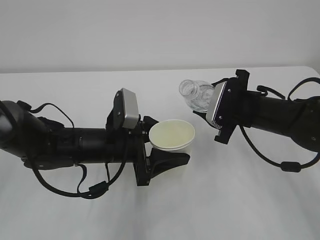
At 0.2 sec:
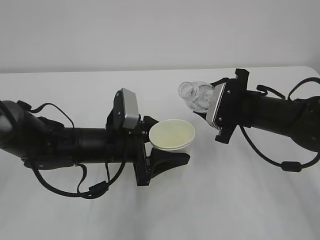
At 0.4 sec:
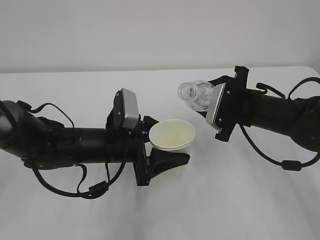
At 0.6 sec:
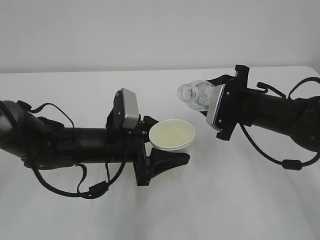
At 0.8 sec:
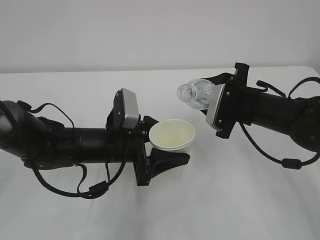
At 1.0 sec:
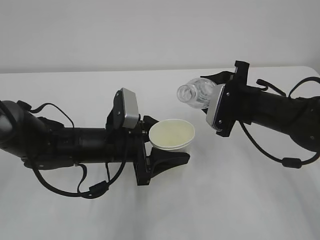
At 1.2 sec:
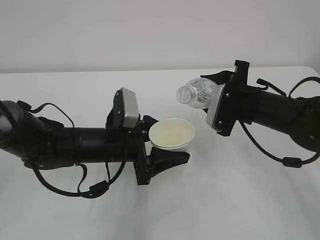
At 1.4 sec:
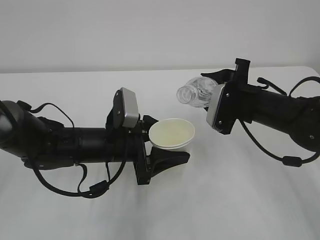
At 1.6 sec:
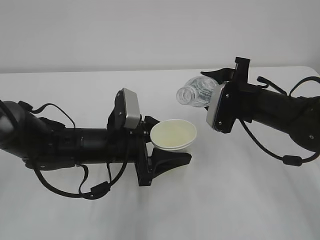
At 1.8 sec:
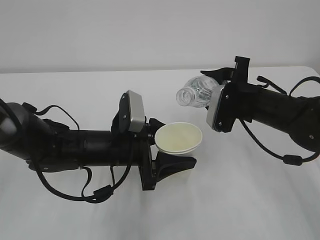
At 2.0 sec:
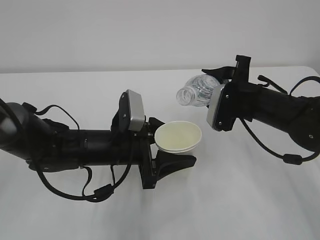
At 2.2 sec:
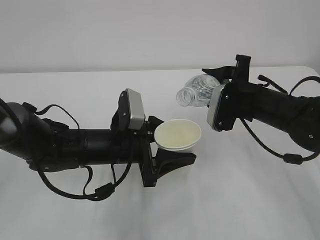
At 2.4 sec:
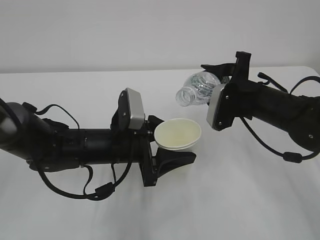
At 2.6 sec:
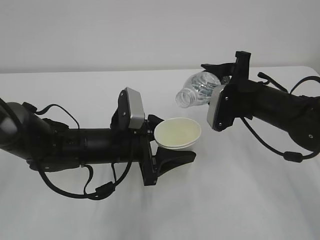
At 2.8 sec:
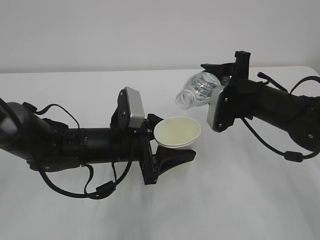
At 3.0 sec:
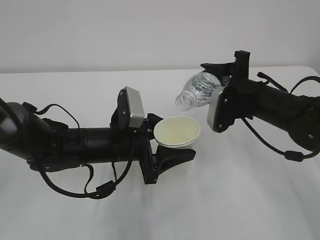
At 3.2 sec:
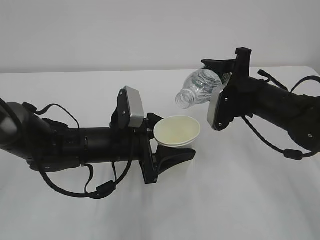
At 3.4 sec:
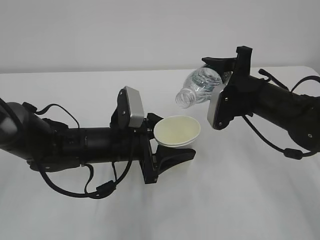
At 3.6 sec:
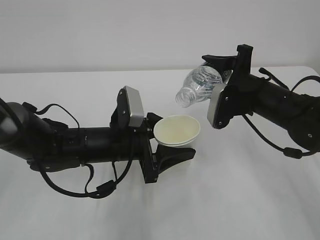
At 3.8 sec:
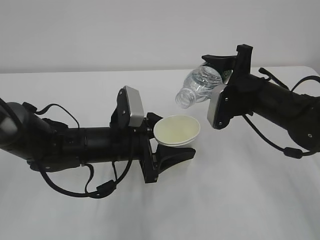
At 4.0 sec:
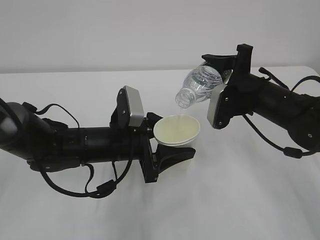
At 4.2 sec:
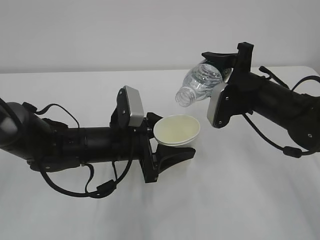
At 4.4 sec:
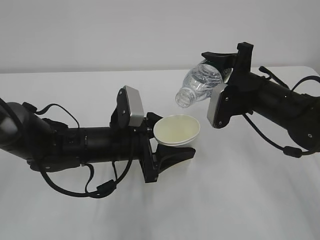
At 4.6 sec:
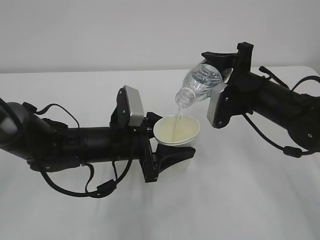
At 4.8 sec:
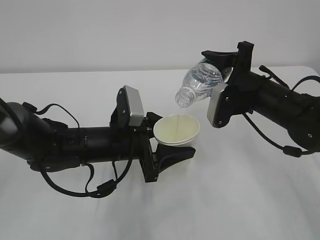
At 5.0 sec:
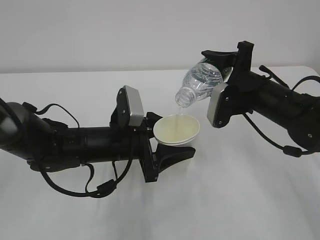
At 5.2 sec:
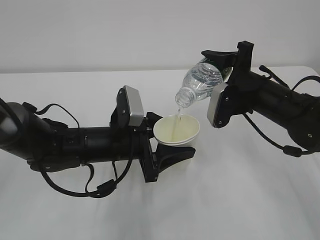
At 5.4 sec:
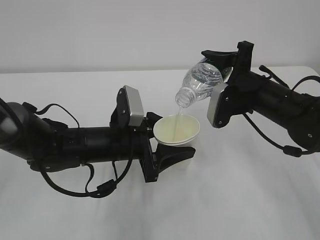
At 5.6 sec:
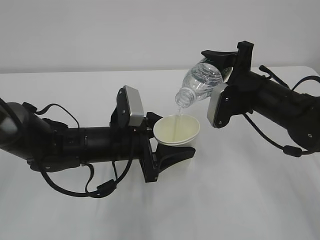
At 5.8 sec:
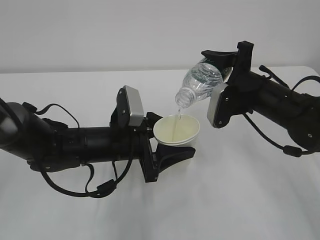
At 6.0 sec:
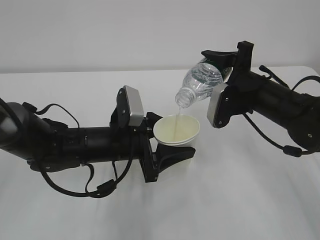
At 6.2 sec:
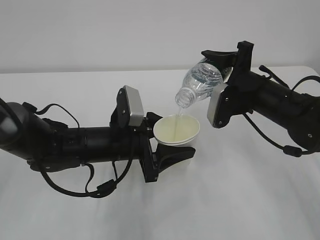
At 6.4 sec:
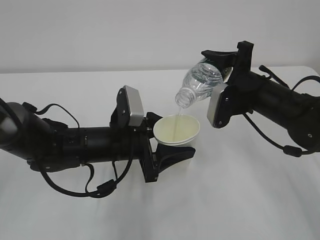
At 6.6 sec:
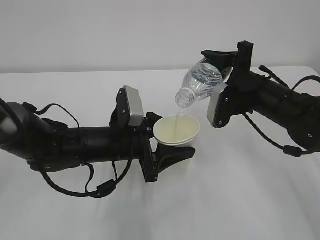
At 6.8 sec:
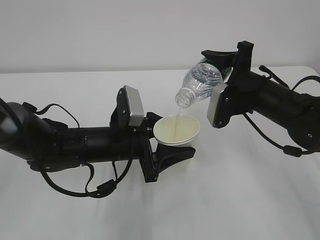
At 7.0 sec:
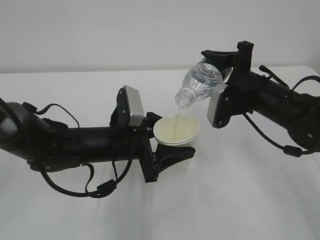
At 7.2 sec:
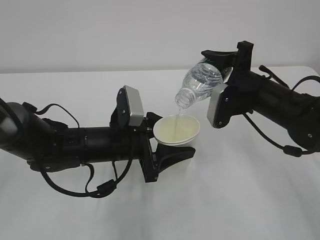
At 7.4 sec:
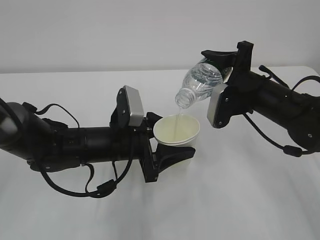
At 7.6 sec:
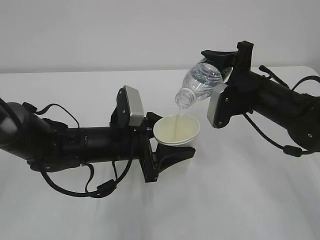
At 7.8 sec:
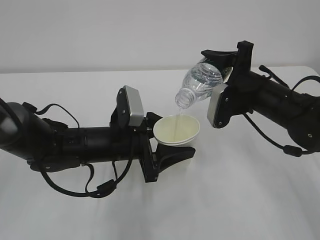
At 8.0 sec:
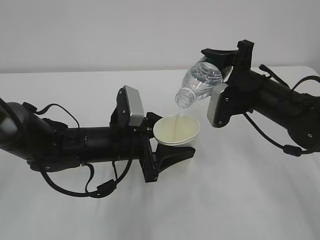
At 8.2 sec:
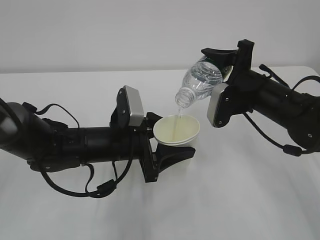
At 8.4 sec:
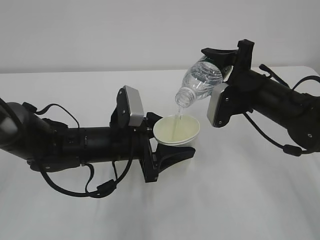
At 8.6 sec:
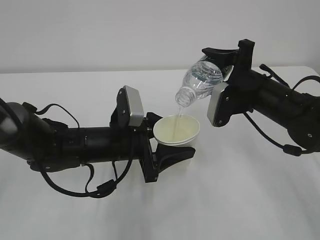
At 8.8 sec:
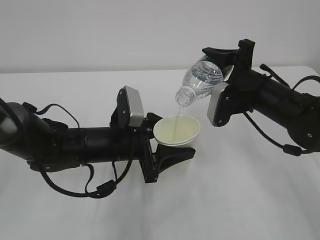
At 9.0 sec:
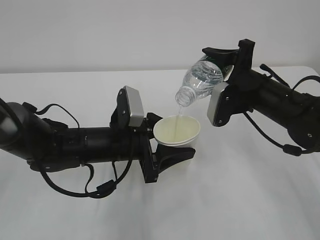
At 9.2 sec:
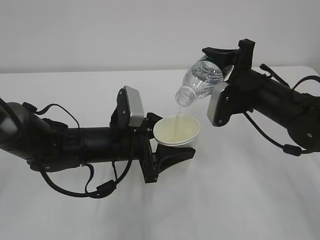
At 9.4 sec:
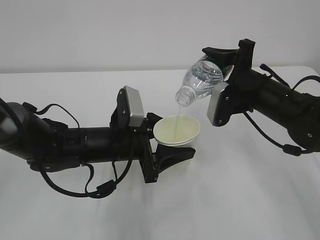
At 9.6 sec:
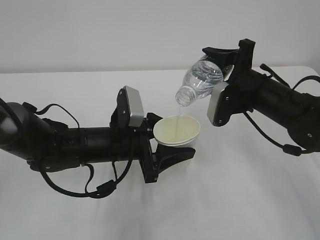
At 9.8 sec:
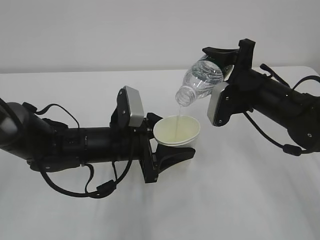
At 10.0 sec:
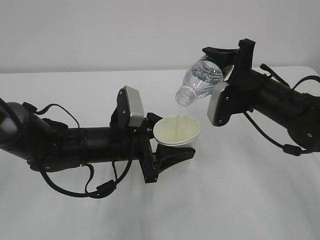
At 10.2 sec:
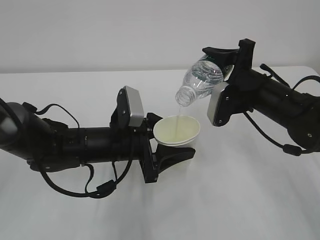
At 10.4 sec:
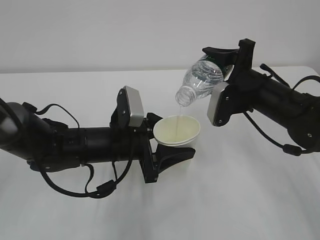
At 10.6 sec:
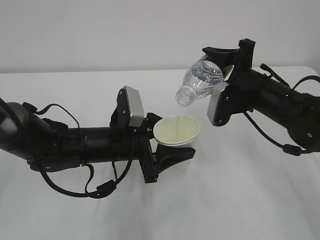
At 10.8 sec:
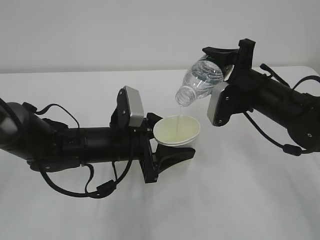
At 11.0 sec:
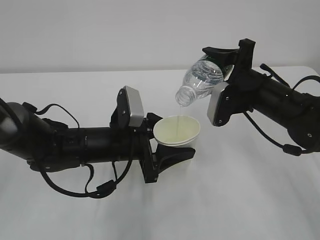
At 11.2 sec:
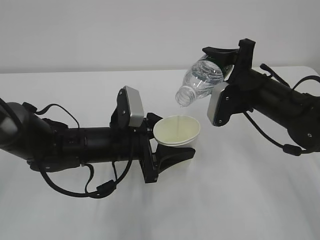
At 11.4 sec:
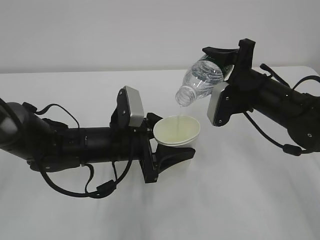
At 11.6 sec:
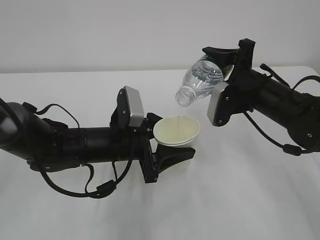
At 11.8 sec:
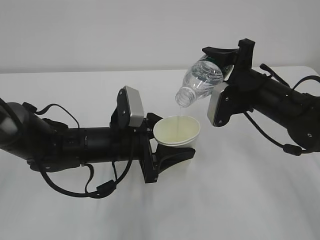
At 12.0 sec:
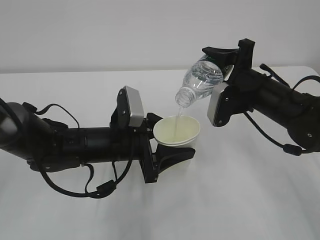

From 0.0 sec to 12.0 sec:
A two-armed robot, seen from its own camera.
From 0.0 sec to 1.6 sec: The grippers move only a little.
From 1.6 sec to 4.4 sec: There are only small adjustments of the grippers.
From 4.4 sec to 12.0 sec: Both grippers stay put.

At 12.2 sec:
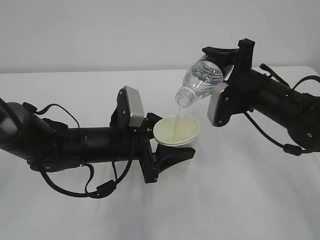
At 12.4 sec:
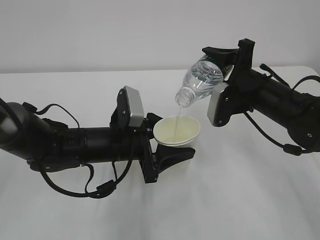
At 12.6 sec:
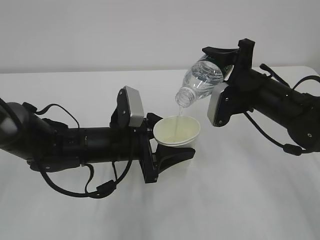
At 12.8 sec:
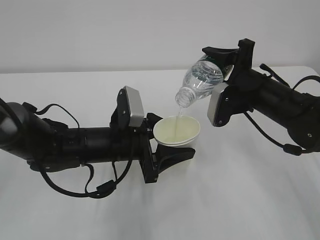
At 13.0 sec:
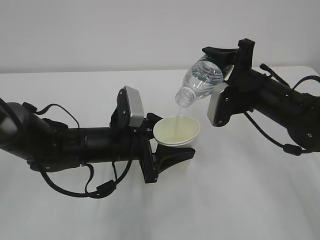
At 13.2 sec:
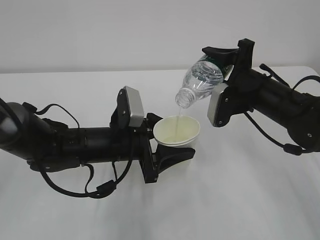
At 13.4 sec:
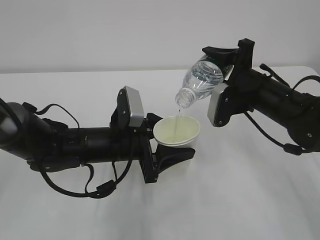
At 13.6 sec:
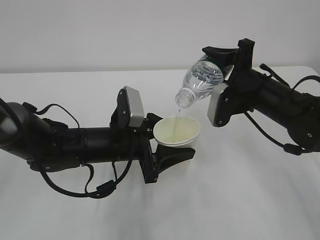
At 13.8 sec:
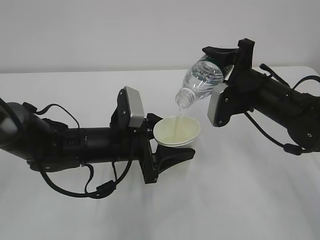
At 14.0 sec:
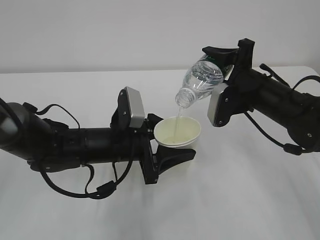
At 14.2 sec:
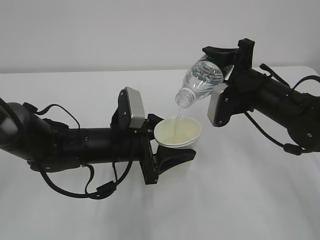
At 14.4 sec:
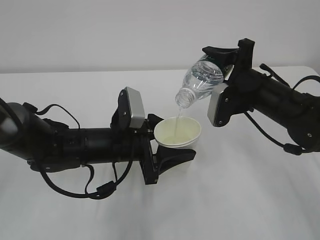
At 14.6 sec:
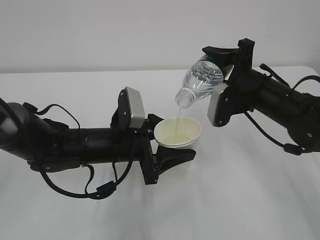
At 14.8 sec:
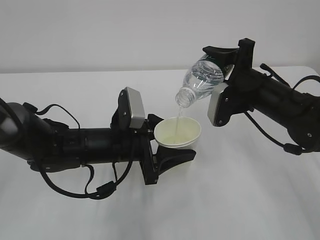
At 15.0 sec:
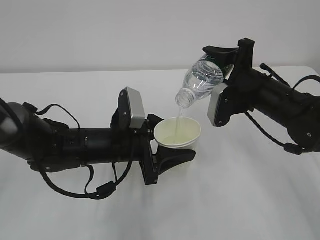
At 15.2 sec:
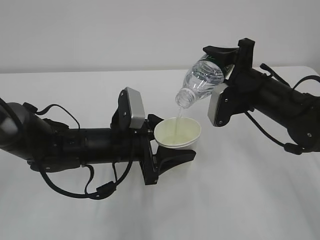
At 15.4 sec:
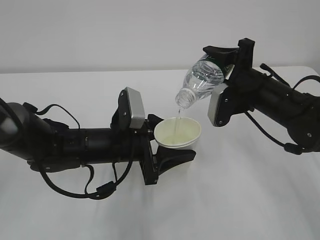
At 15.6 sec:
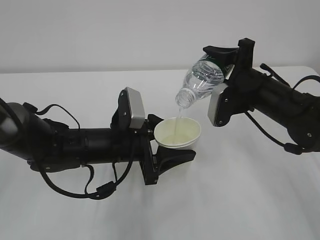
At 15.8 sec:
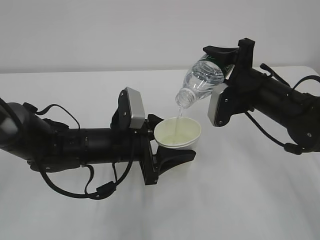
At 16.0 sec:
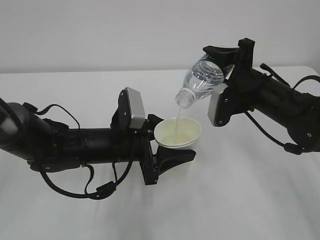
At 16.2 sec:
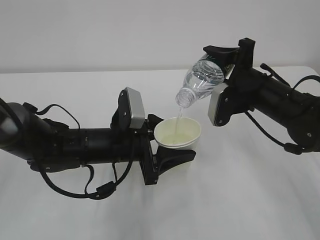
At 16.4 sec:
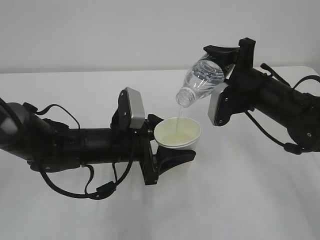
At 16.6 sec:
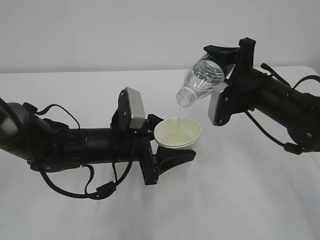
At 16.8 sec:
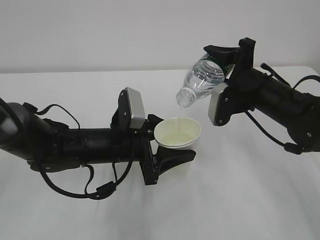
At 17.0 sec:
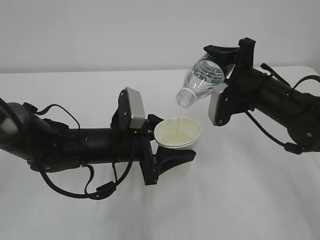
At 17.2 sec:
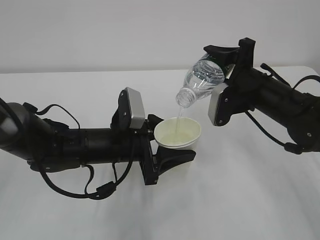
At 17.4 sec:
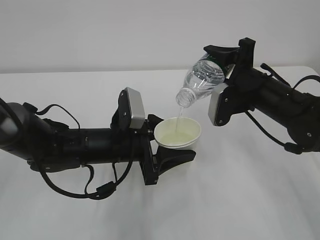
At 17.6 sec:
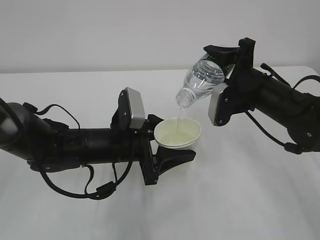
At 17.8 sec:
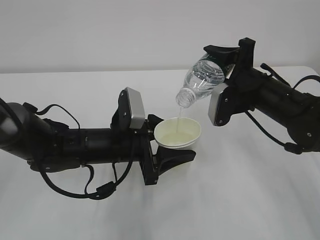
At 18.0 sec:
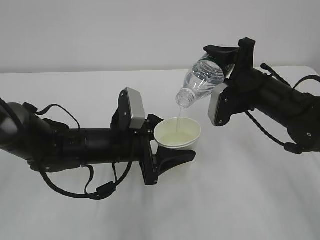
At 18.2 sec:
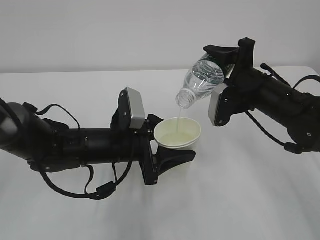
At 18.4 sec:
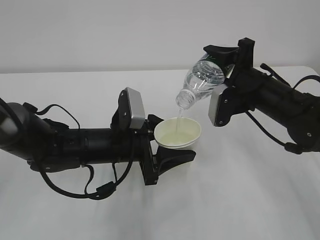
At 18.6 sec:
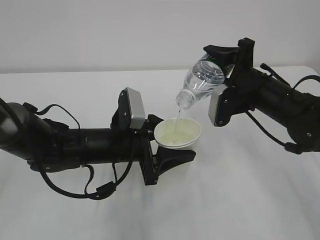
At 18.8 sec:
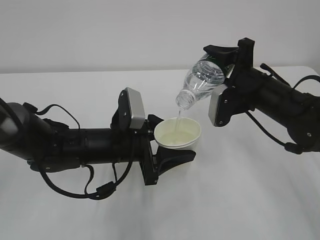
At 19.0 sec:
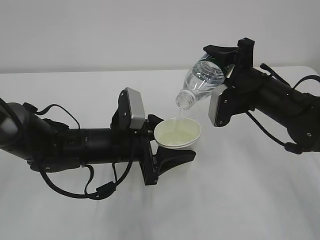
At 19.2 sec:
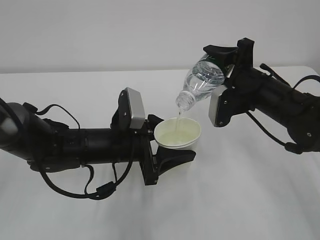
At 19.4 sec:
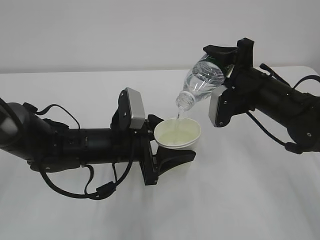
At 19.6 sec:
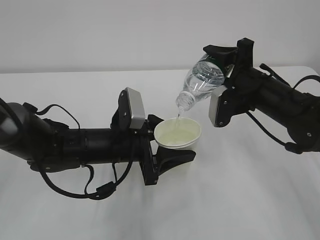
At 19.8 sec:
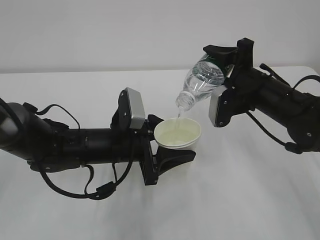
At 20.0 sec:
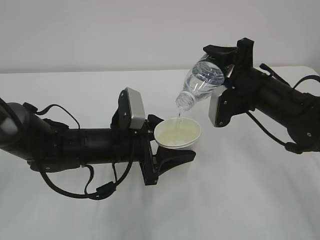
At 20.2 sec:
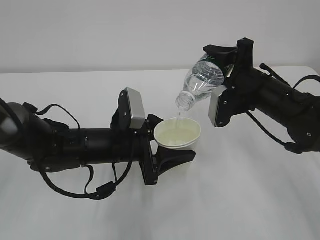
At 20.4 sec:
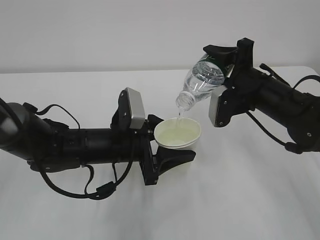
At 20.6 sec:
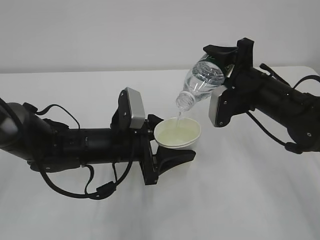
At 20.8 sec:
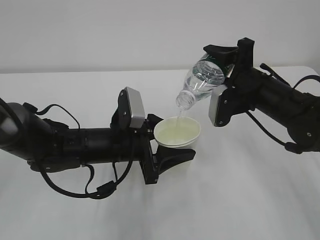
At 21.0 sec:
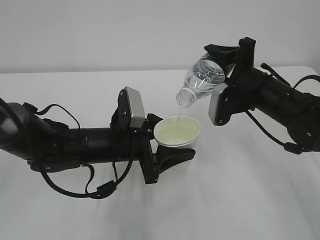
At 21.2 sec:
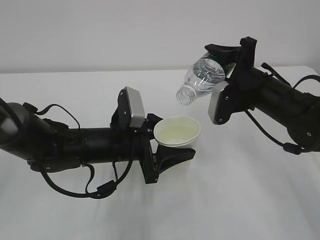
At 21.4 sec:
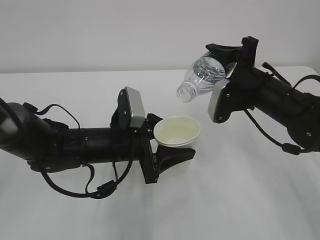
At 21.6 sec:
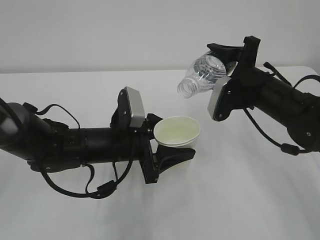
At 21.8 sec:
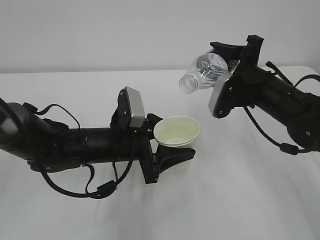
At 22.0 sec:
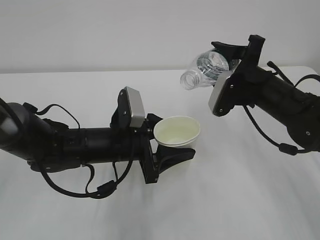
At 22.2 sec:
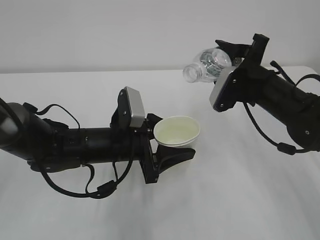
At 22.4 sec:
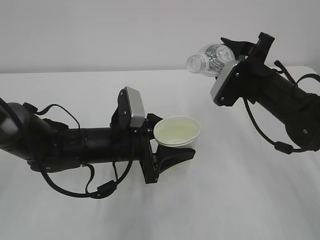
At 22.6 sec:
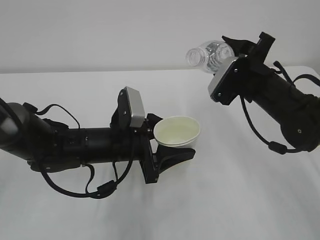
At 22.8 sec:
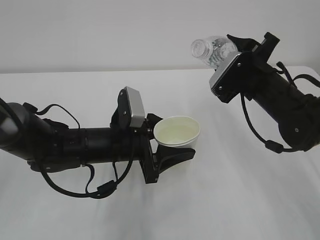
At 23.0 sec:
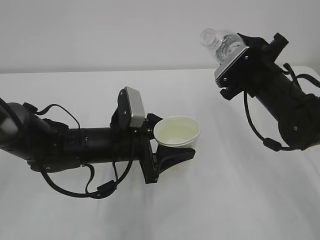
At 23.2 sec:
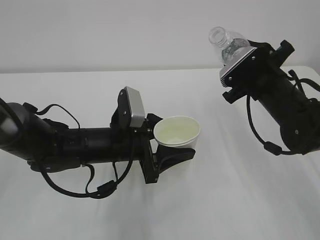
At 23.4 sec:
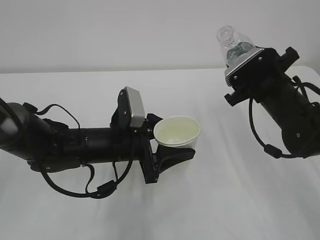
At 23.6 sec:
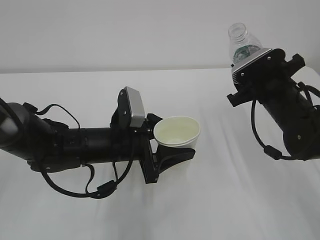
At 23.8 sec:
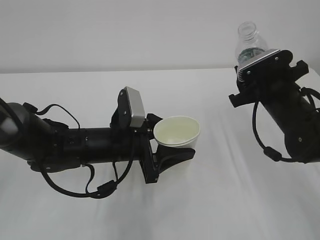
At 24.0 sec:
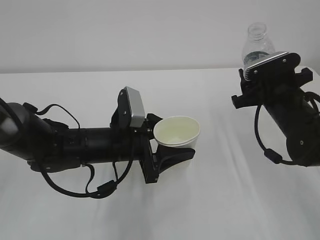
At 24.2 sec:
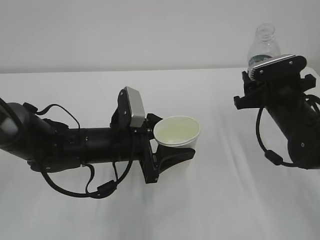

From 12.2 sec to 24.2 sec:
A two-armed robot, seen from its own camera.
From 12.2 sec to 18.2 sec: Both grippers stay about where they are.
From 18.2 sec to 19.8 sec: Neither gripper changes place.
From 19.8 sec to 21.2 sec: There are only small adjustments of the grippers.
From 22.6 sec to 24.2 sec: The right gripper ends up approximately 5 cm from where it was.
